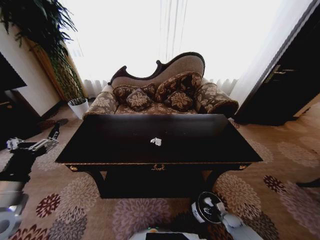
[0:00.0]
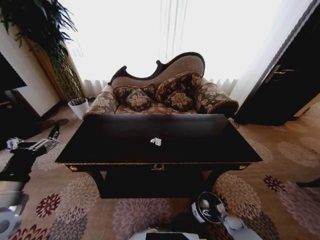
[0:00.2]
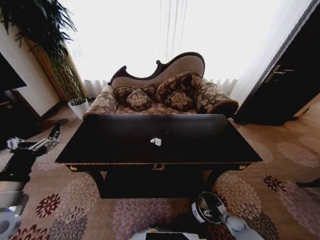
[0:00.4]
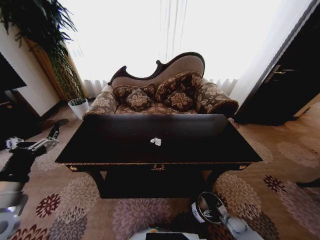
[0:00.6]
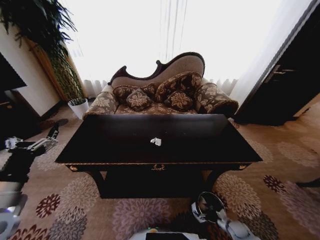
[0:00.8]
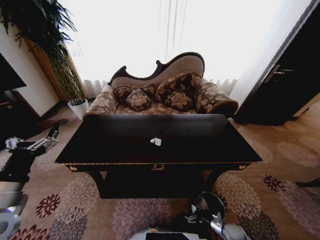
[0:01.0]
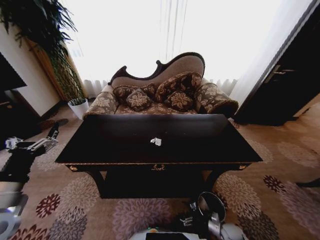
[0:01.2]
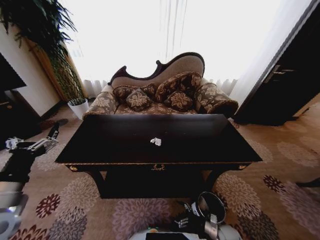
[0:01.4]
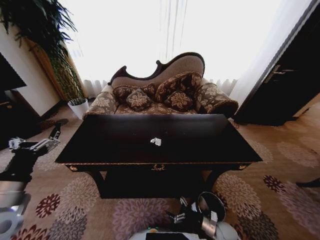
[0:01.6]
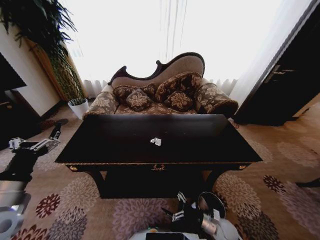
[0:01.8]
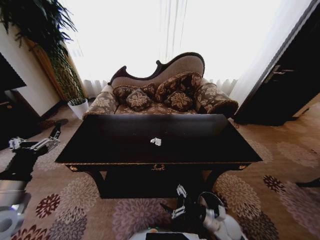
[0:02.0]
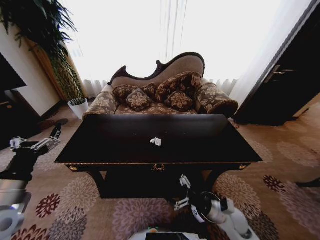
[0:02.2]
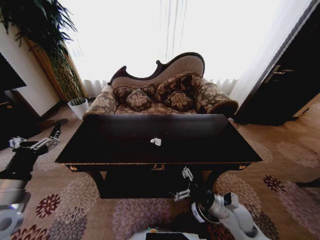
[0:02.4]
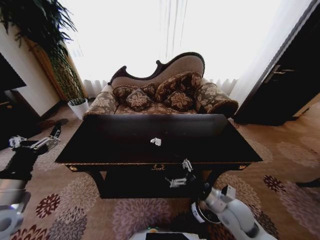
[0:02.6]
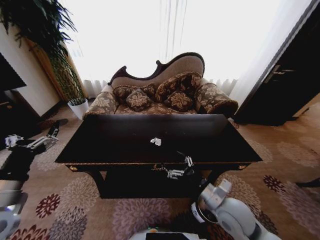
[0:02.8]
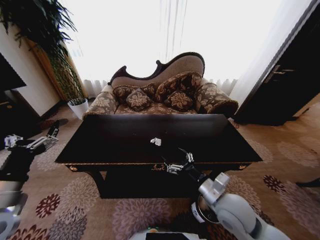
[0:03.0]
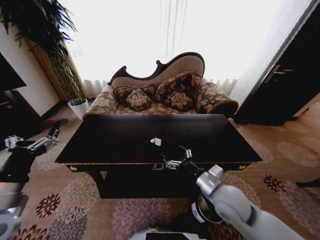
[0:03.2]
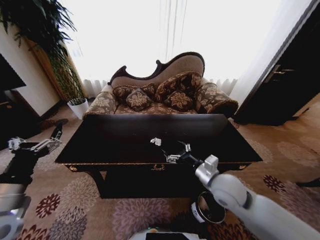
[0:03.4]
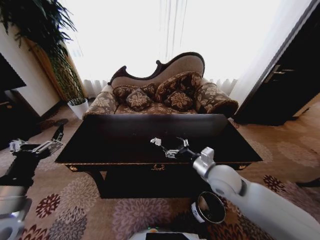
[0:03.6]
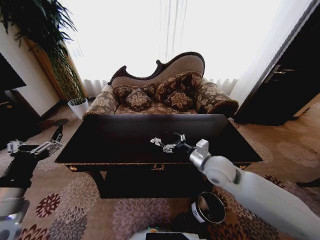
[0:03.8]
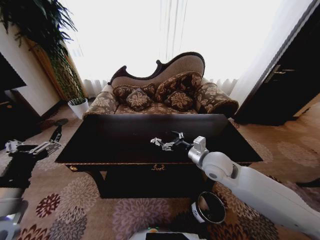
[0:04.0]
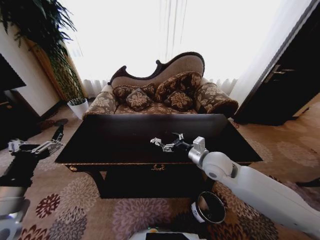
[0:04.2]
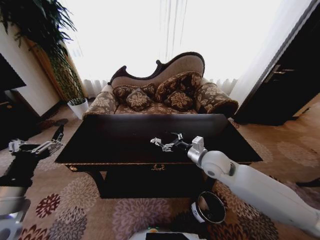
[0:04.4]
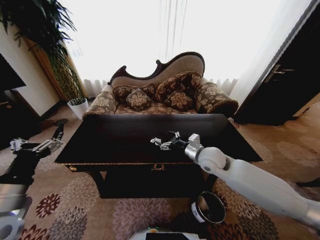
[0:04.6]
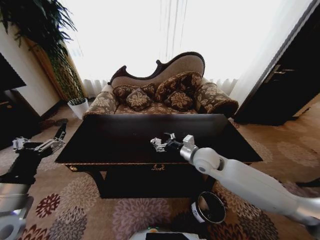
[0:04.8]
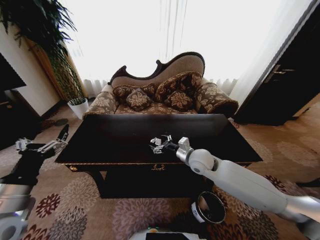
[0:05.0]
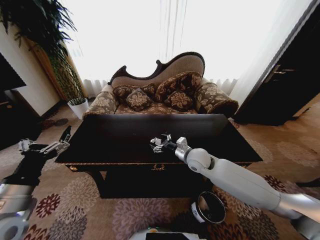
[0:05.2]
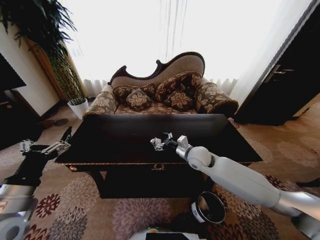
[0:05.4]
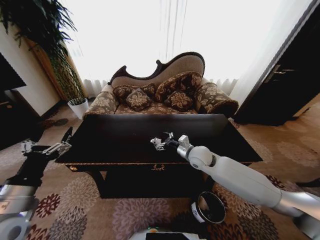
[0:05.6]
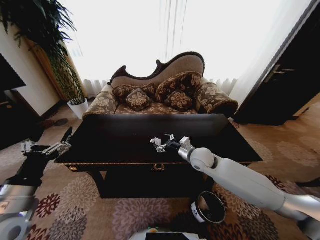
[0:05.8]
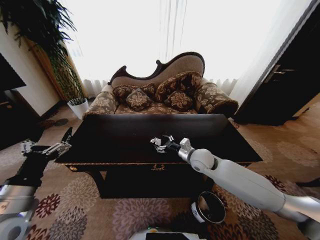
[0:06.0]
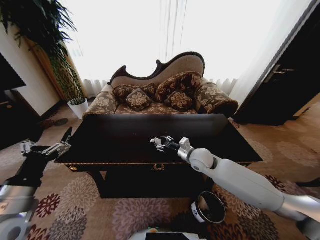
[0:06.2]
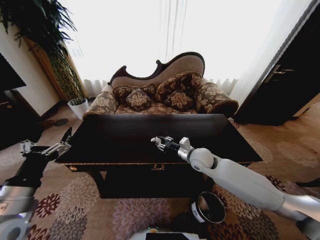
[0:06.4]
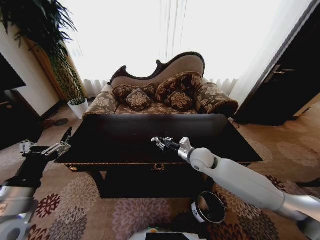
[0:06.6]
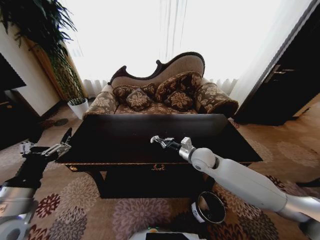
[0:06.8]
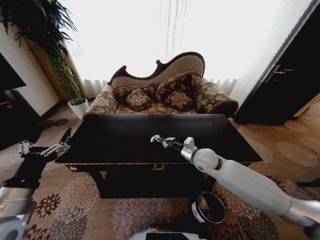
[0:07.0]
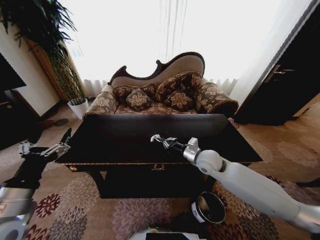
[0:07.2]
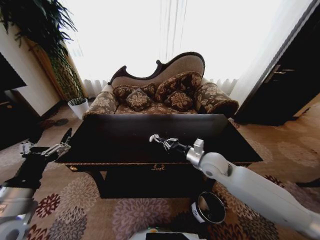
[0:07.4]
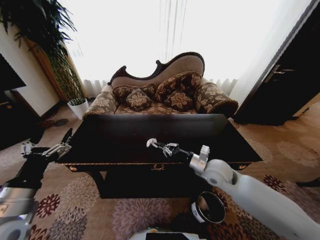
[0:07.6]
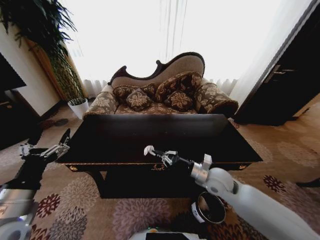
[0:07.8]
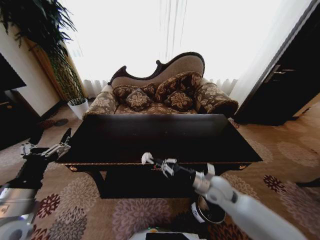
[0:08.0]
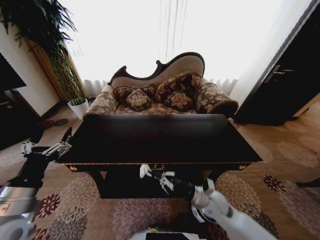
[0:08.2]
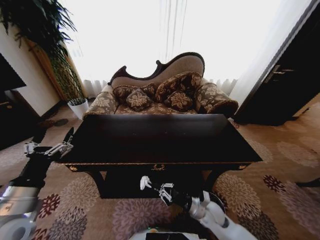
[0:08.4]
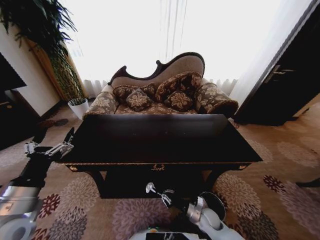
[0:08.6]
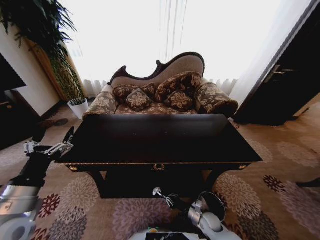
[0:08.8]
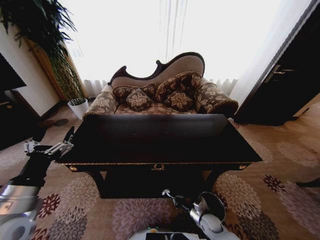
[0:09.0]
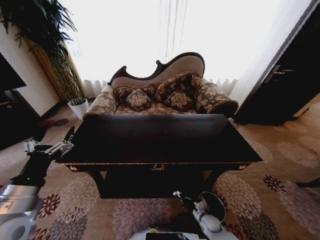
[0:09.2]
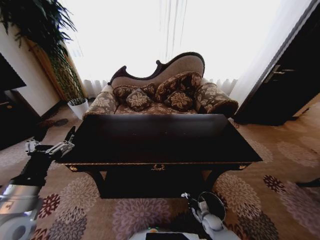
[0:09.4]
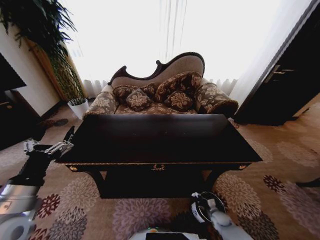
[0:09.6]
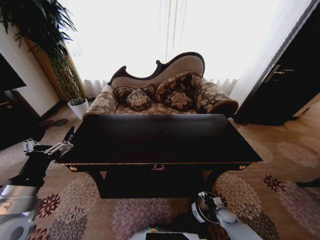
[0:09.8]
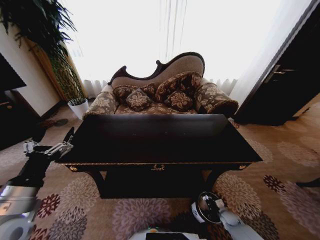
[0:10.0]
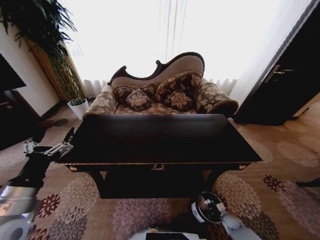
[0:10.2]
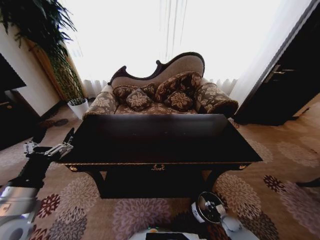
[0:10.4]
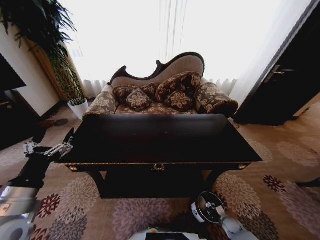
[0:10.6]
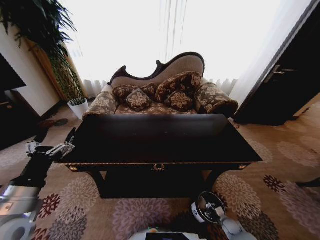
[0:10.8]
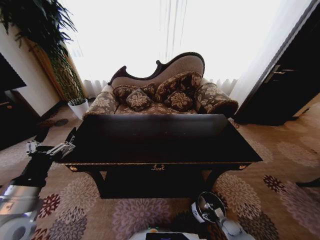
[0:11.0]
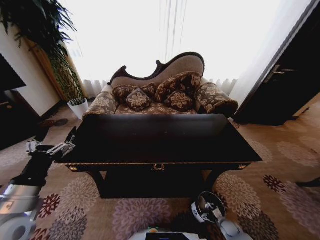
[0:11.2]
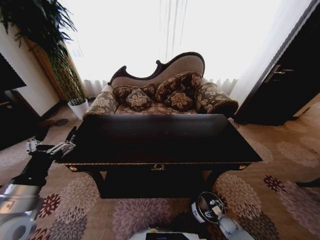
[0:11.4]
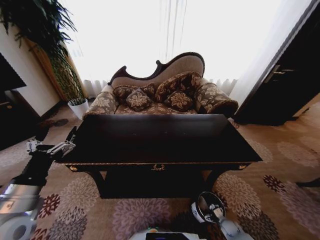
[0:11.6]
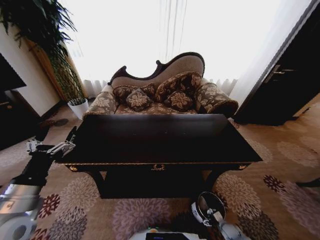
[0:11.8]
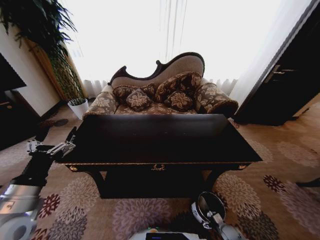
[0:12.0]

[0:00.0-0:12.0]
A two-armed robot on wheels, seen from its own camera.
Task of the whole recording: Move to the front of the table and place the trash on the table into the trash bin.
0.0 to 1.6 s: The right gripper moves to the left and upward, about 15 cm.
1.6 to 3.0 s: The right gripper moves upward, about 30 cm.
3.0 to 4.4 s: The right gripper heads forward, covering about 15 cm.
4.4 to 6.0 s: The right gripper changes place by about 5 cm.
6.0 to 7.6 s: The right gripper heads backward, covering approximately 5 cm, and closes.
7.6 to 9.0 s: The right gripper is displaced downward by about 35 cm.
9.0 to 10.4 s: The right gripper shifts approximately 15 cm to the right.
10.4 to 12.0 s: The right gripper opens its fingers.

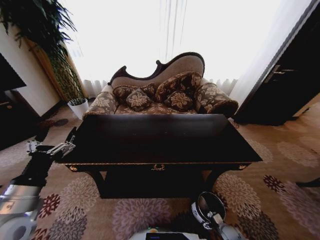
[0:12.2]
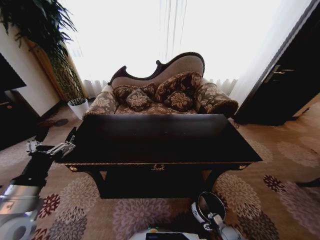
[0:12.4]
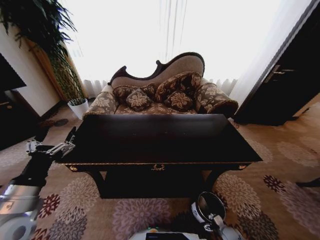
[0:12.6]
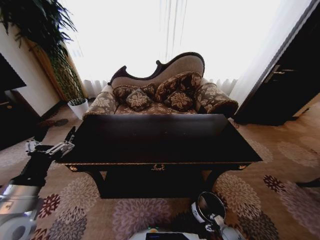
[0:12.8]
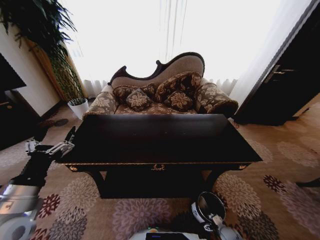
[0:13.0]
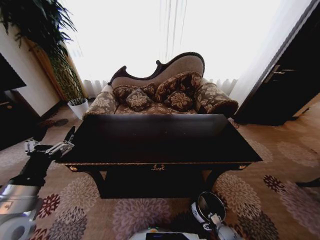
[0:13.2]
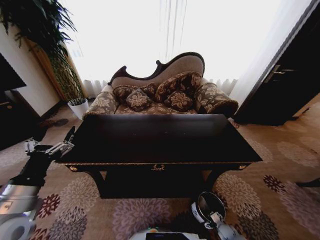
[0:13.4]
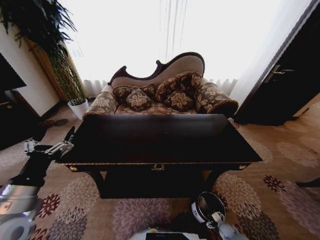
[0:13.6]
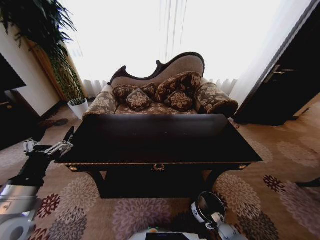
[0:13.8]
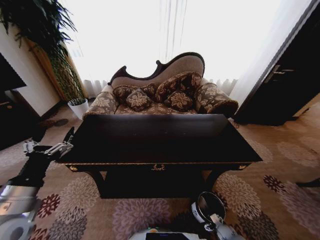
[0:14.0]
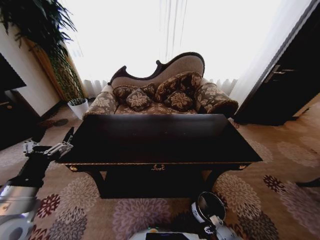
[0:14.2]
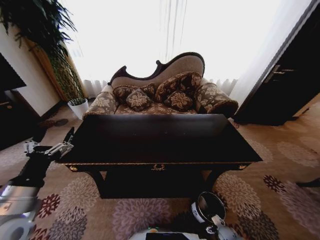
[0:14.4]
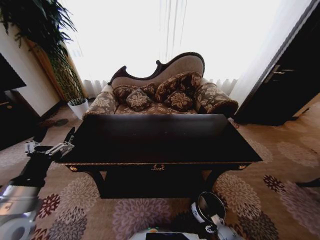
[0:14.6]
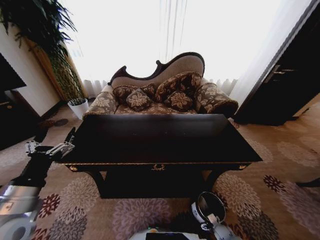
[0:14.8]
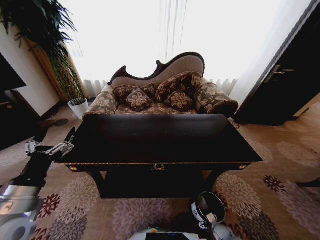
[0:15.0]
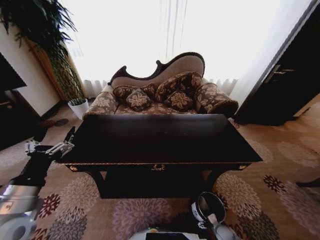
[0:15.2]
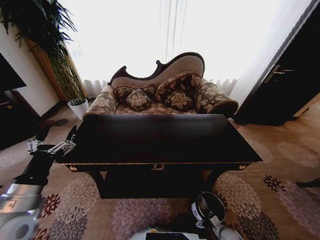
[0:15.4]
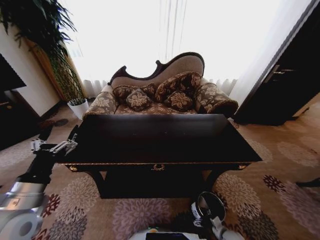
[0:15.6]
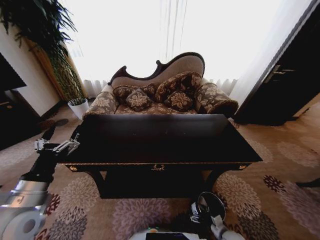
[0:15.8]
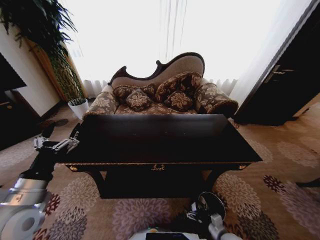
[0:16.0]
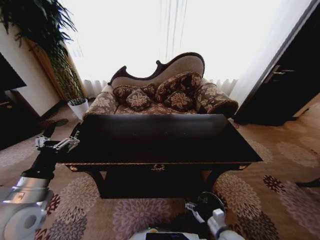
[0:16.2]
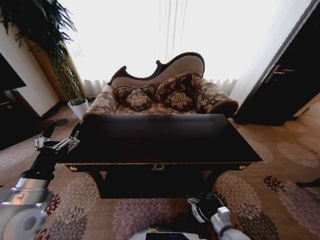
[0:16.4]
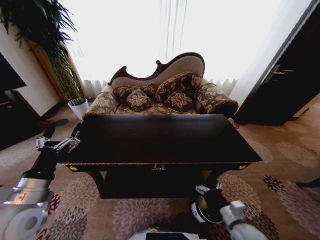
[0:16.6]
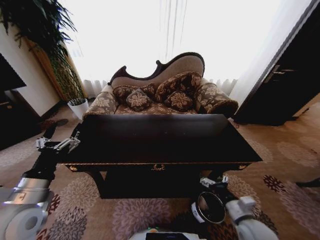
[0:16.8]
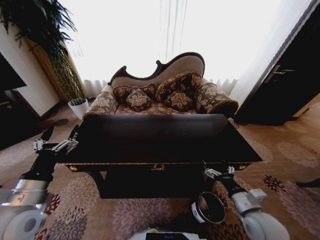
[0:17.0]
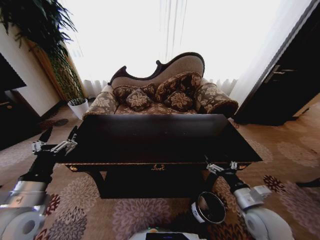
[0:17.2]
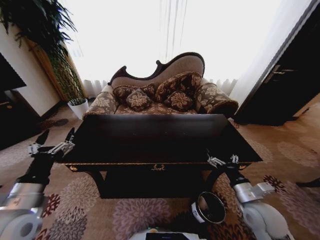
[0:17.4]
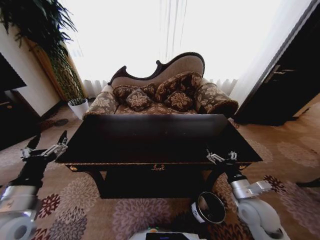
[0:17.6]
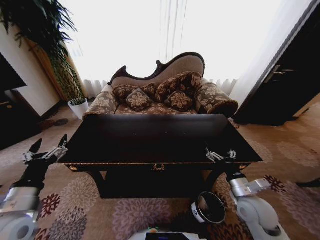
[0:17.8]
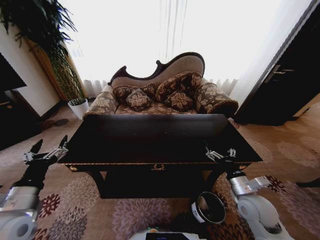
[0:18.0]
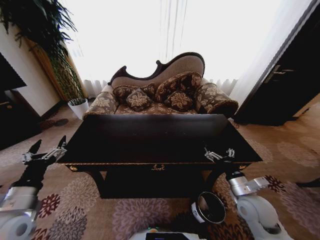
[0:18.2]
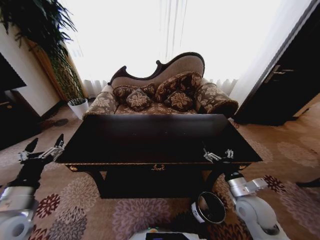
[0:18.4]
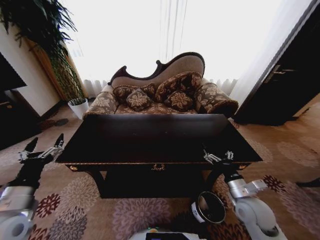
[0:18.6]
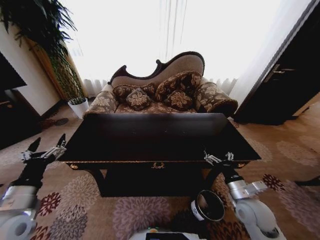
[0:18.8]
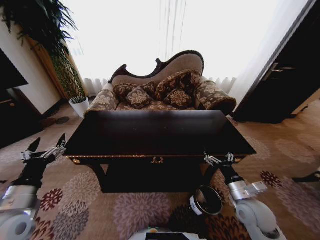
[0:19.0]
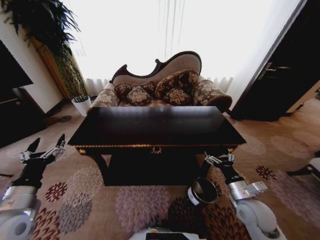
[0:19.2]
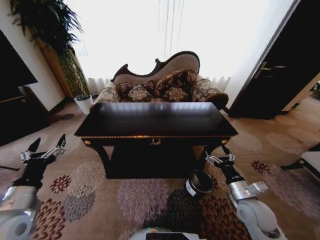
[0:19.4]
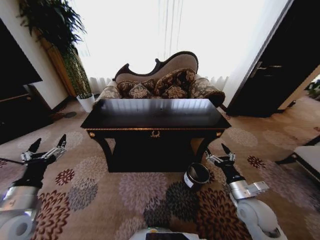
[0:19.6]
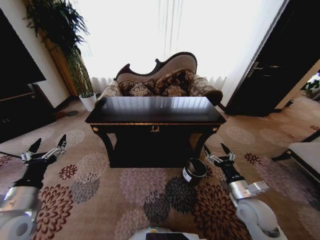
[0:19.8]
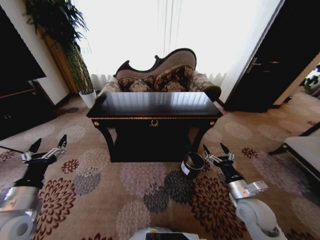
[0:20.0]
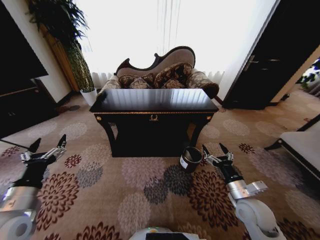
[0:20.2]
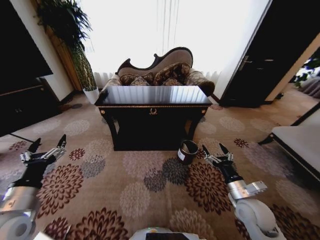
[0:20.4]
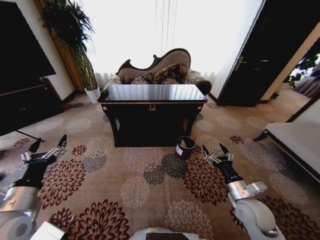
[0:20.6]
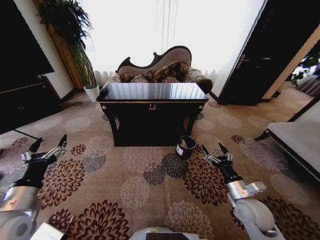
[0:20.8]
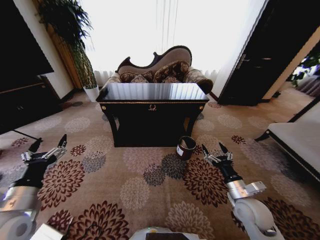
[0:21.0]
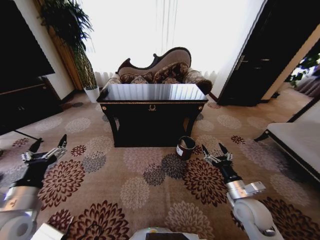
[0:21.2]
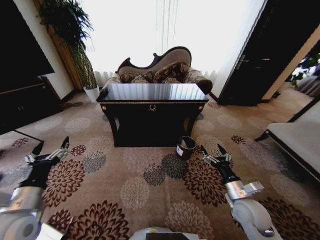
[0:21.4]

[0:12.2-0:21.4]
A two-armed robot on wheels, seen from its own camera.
Task of the whole recording: Move to the front of the table and place the trash on the table into the trash bin.
12.2 to 15.2 s: The grippers stay close to where they were, moving slightly.
15.2 to 16.8 s: The right gripper goes some 30 cm upward.
16.8 to 18.4 s: The right gripper moves forward, some 5 cm.

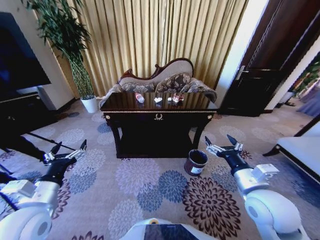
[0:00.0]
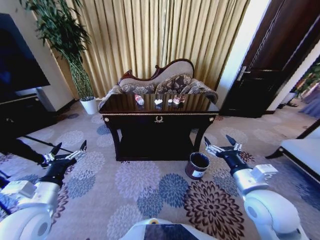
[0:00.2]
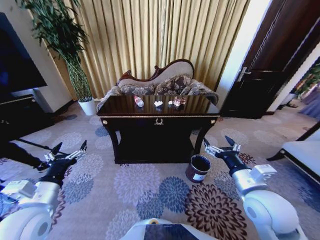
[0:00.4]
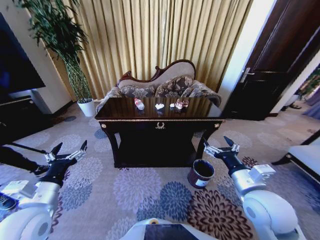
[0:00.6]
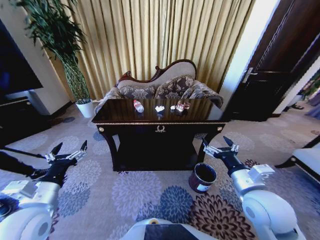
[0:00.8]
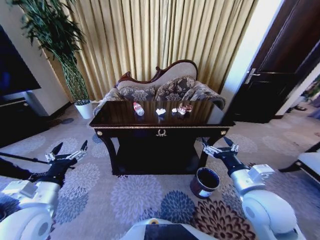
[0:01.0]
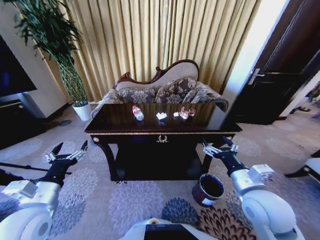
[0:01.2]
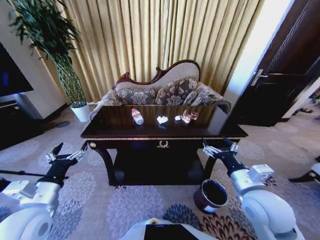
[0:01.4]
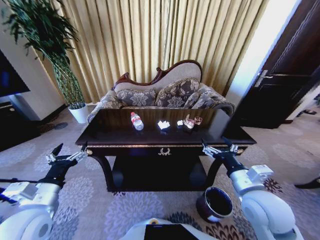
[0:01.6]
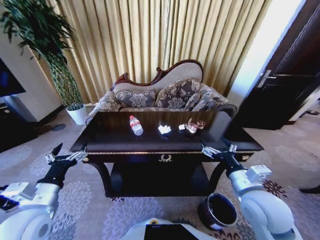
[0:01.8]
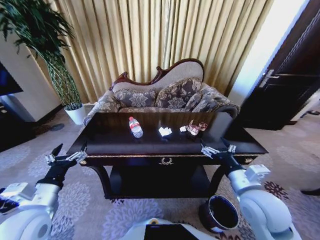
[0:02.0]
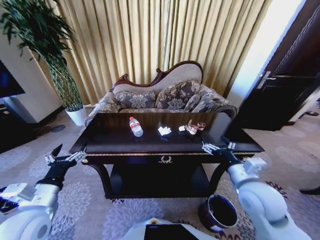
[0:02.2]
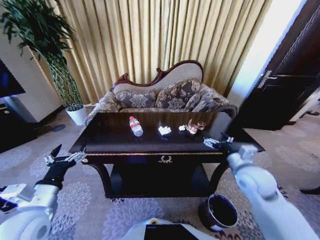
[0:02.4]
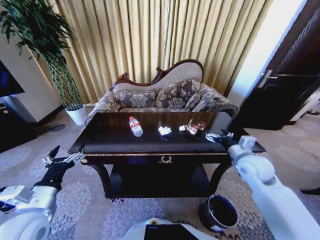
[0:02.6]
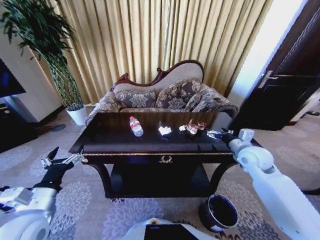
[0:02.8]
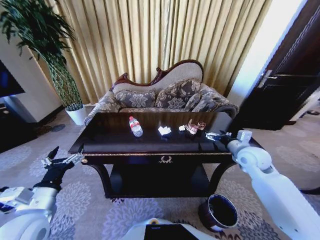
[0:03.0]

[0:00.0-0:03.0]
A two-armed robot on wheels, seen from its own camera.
Task of the whole recording: Move to the front of the table and place the trash on the table into the trash bin.
1.6 to 3.0 s: The right gripper moves forward and to the right, roughly 20 cm.
